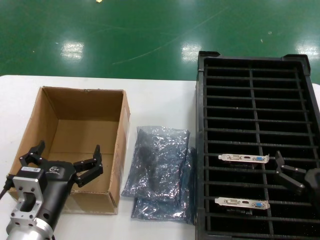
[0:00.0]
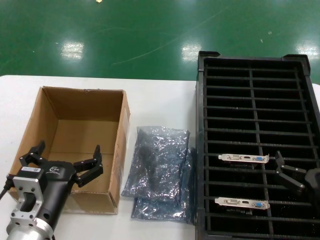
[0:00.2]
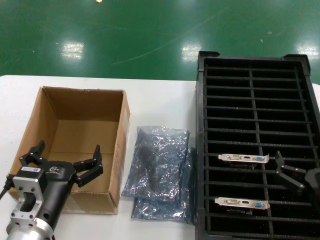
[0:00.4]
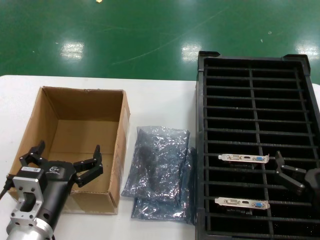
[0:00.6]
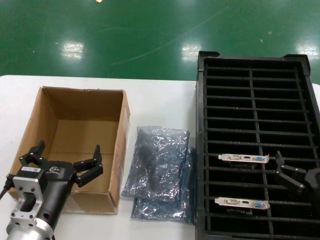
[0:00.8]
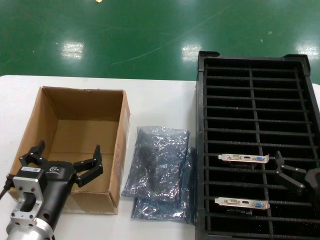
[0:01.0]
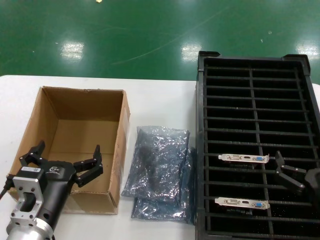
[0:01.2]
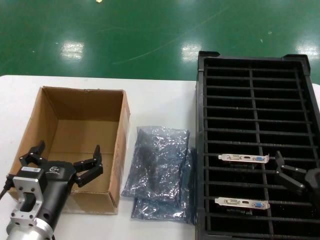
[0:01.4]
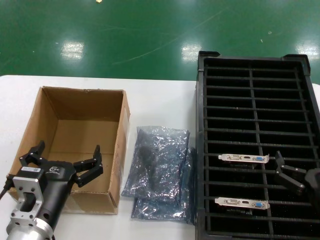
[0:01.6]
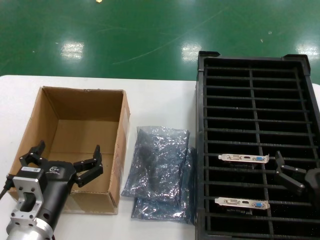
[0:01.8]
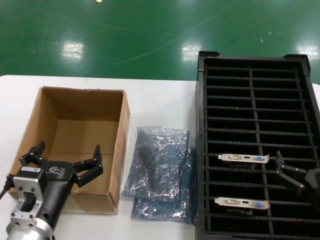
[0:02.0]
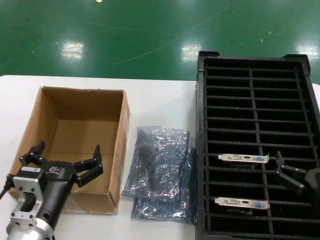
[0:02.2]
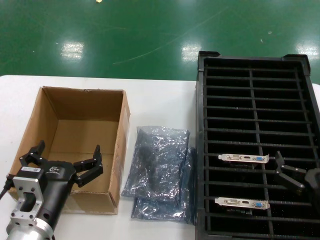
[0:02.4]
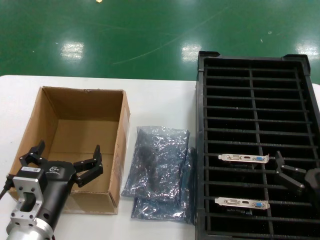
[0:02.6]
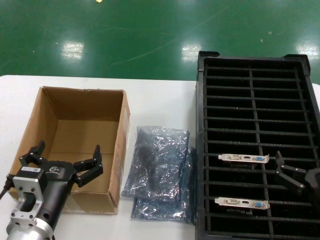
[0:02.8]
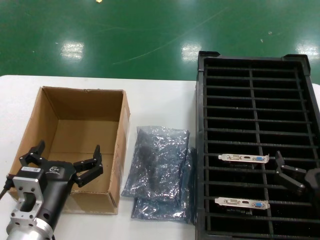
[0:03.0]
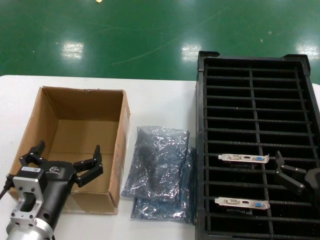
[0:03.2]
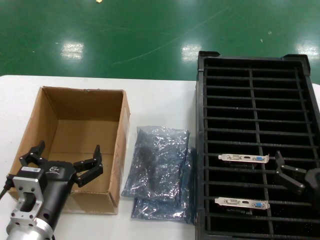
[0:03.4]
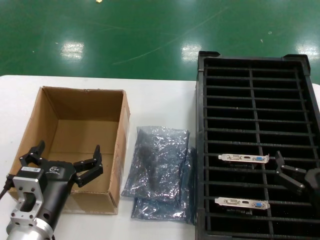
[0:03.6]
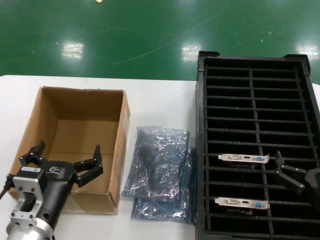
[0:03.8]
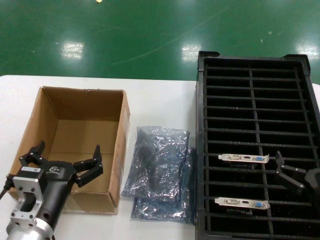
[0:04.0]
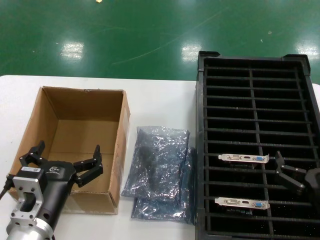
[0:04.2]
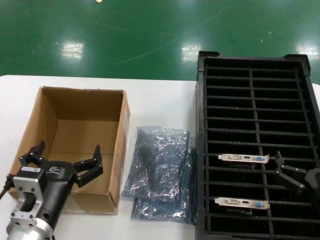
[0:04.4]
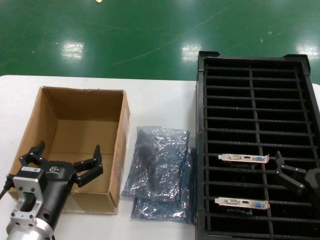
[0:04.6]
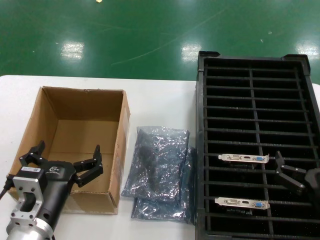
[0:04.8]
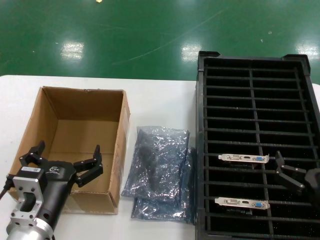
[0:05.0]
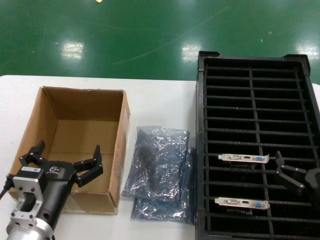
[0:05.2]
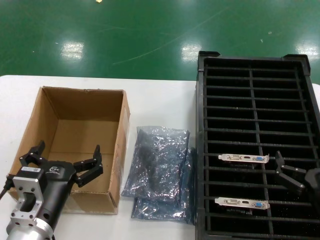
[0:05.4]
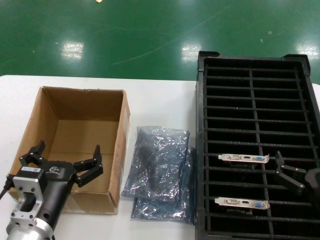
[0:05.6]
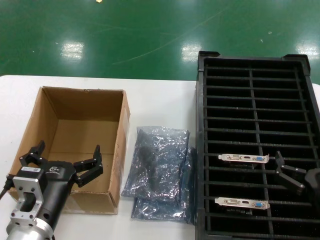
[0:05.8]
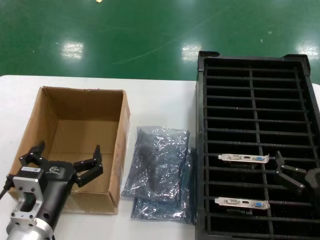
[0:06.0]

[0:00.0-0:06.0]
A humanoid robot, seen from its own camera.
Task of the whole recording: take out graphics card from box remove packaging put into black container.
0:00.0 to 0:06.0: Neither hand changes place.
